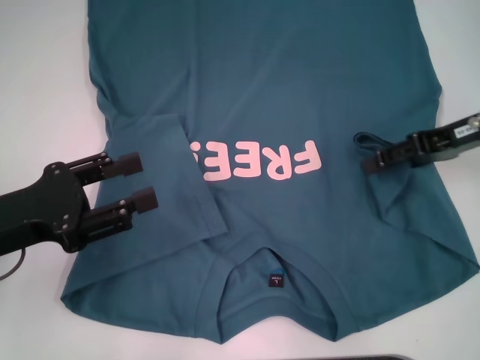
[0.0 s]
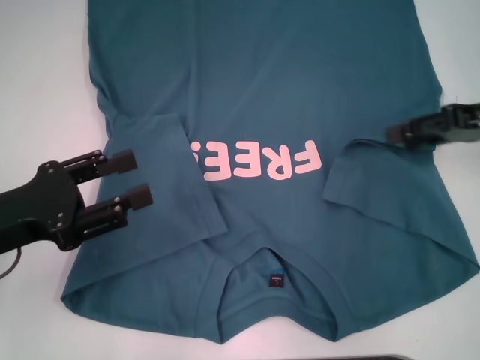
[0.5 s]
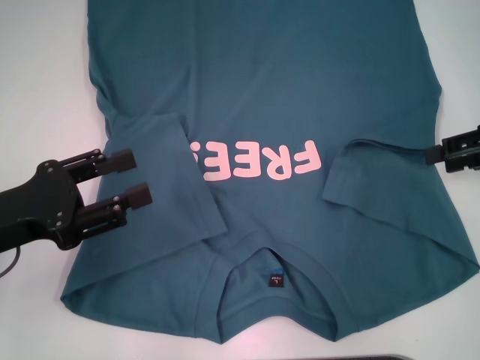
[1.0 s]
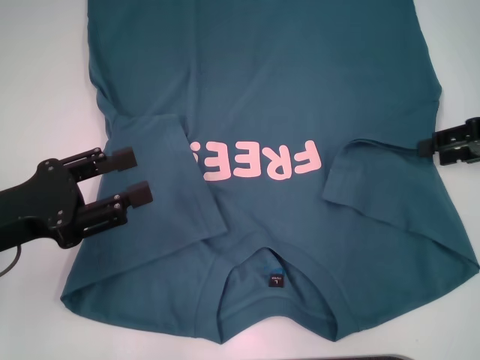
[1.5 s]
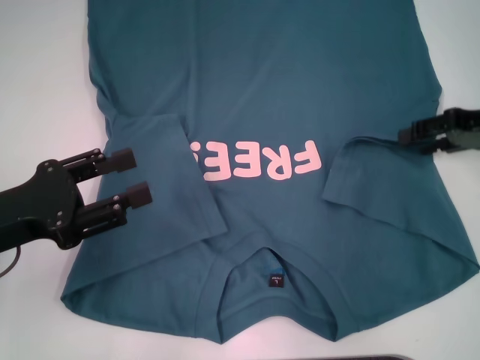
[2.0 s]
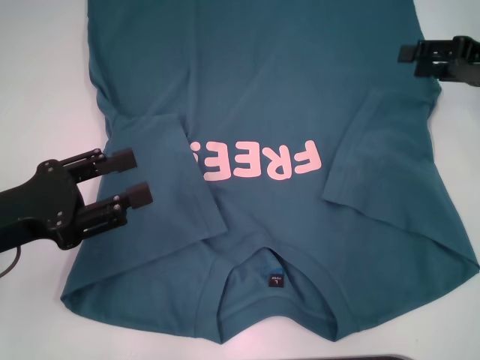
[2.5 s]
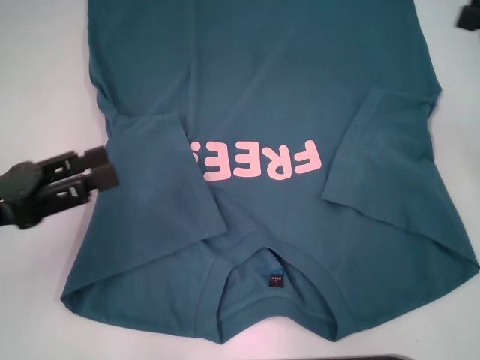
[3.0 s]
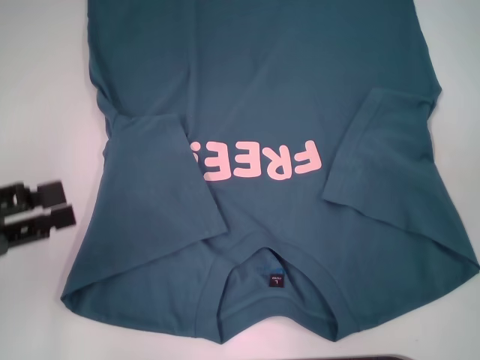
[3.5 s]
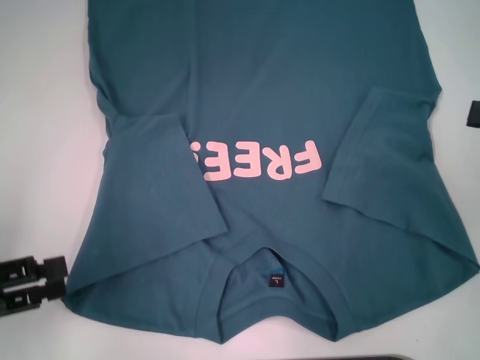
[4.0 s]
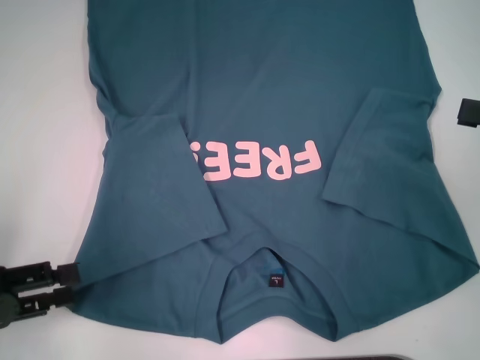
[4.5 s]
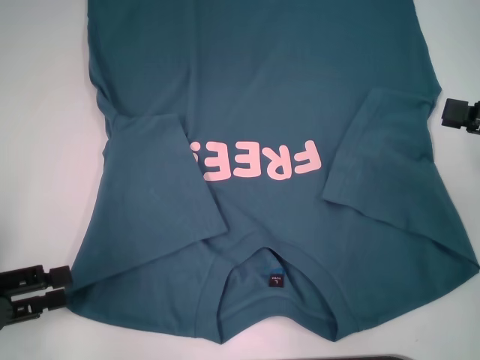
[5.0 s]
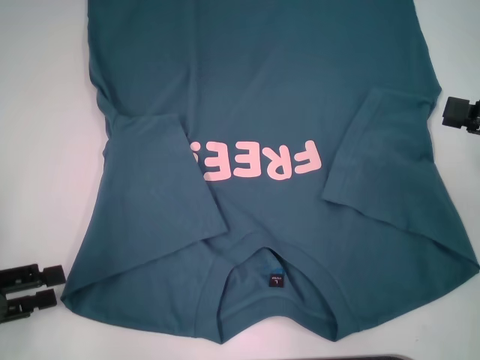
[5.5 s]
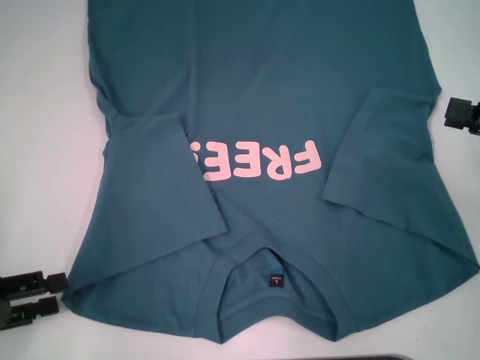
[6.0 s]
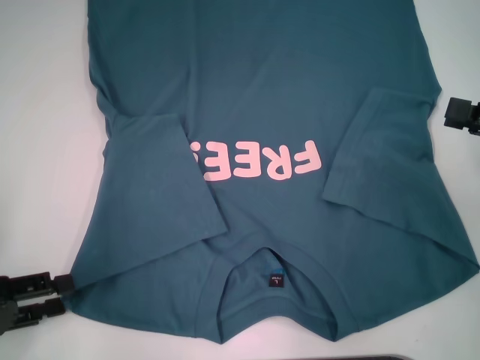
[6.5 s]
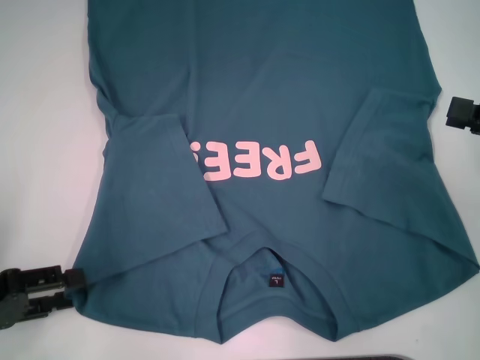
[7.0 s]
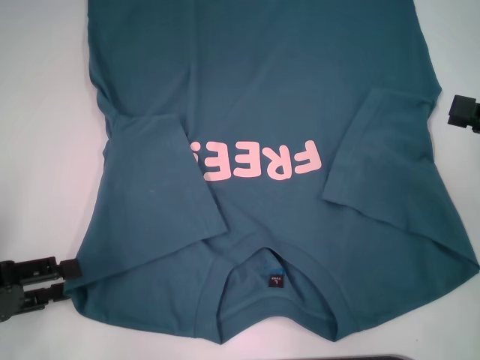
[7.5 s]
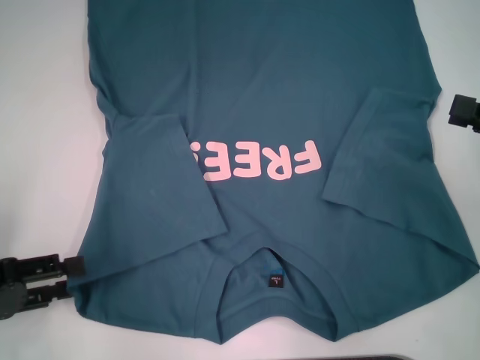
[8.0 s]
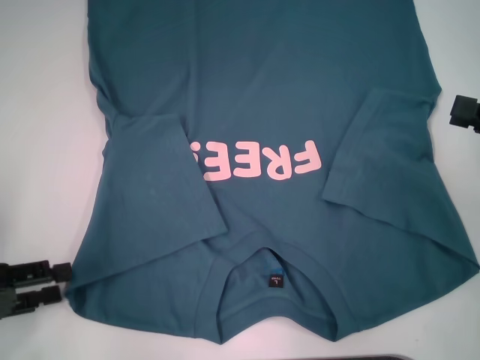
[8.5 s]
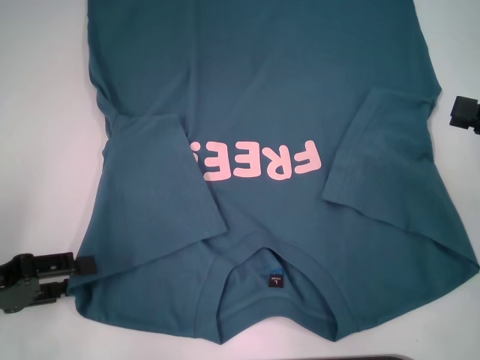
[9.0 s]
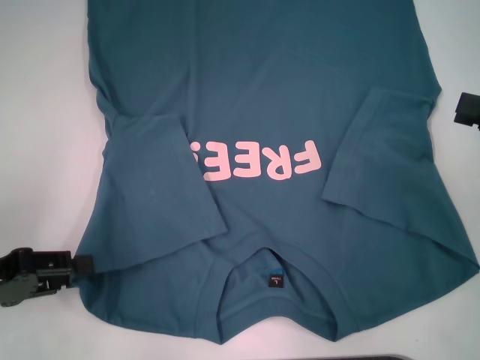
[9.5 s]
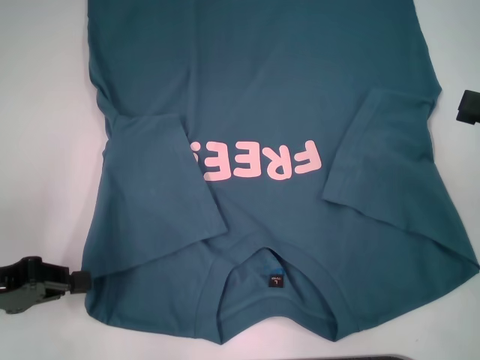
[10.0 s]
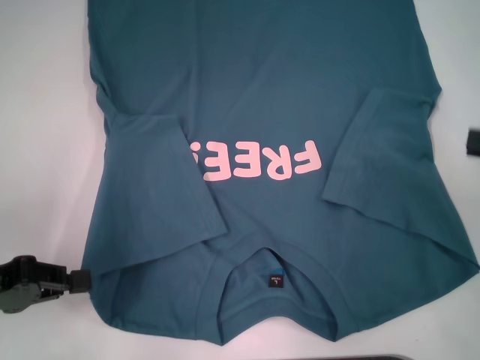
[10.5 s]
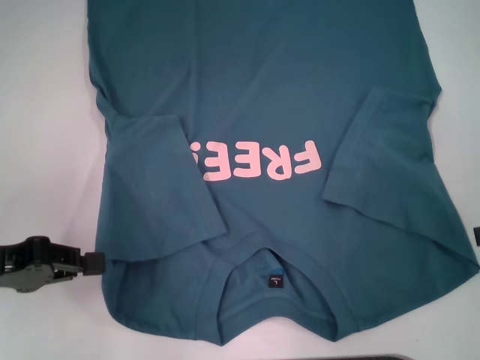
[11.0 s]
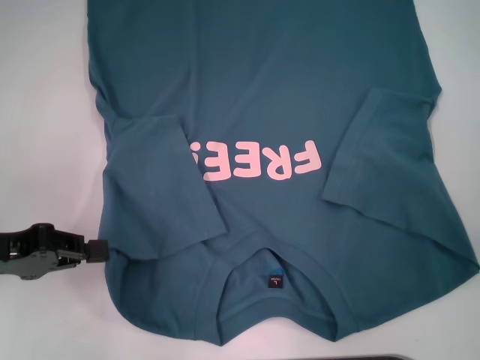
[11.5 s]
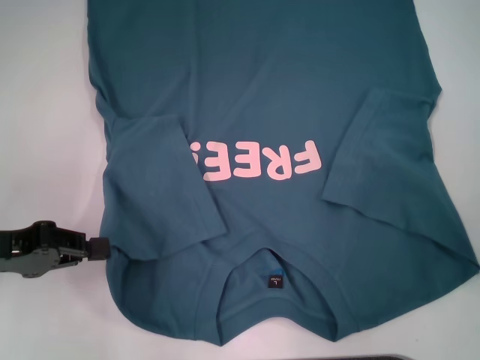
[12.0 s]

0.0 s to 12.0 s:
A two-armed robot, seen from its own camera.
Step, 0.0 to 2.5 s: Fold the bottom right sleeve to the right.
Step, 3.0 to 10.5 s: Grab the bottom left corner with your left hand.
2.0 to 4.0 s: The right gripper moves backward, roughly 10 cm, while the left gripper moves to the left, about 5 cm.
4.0 to 8.0 s: The grippers move only a little.
8.0 to 10.0 s: The left gripper closes.

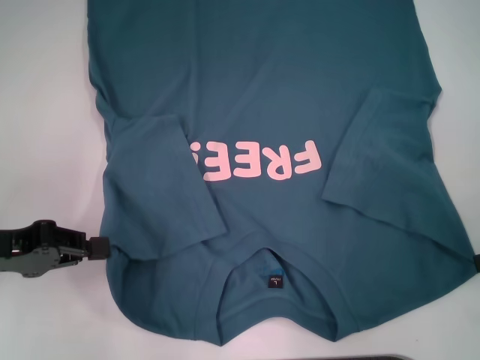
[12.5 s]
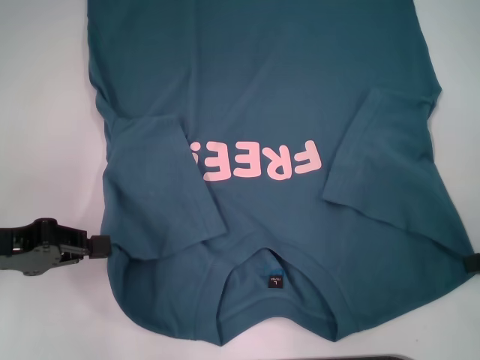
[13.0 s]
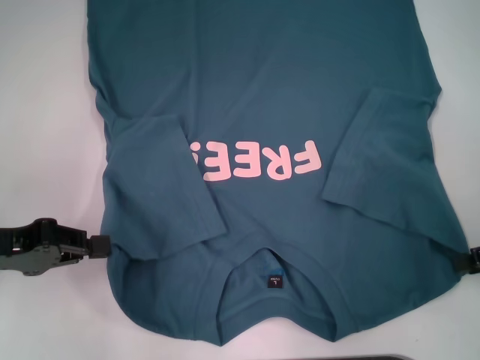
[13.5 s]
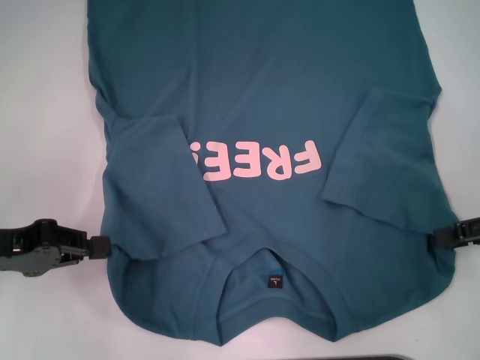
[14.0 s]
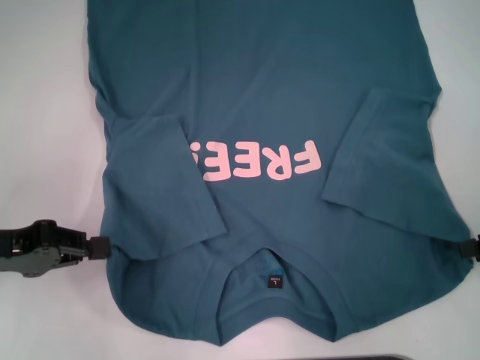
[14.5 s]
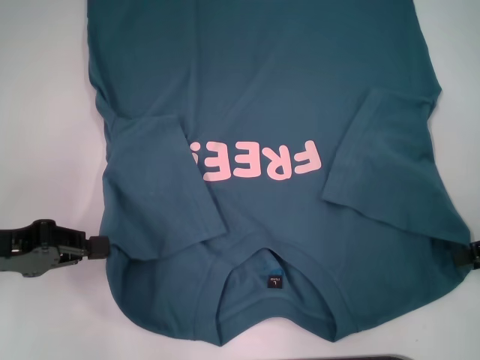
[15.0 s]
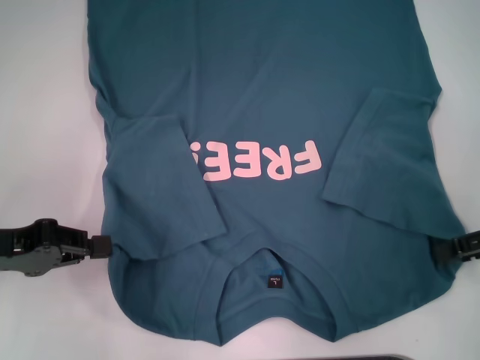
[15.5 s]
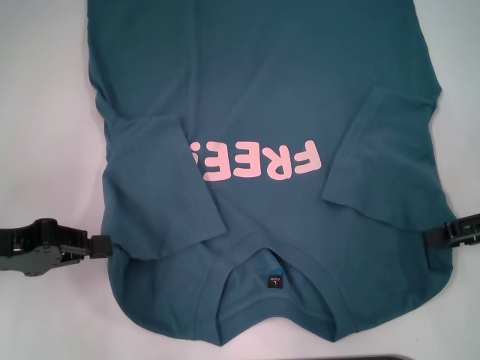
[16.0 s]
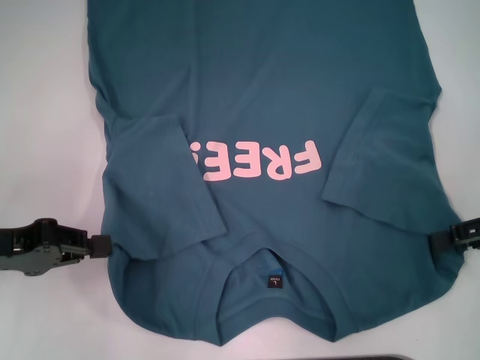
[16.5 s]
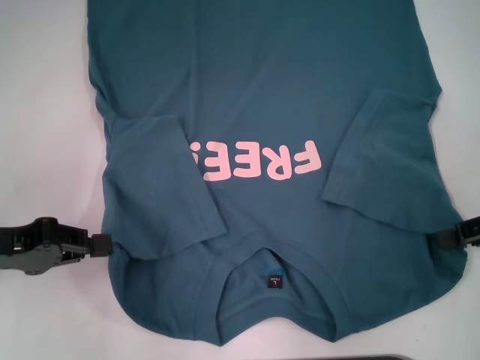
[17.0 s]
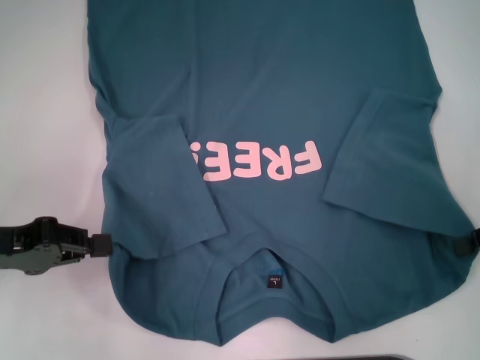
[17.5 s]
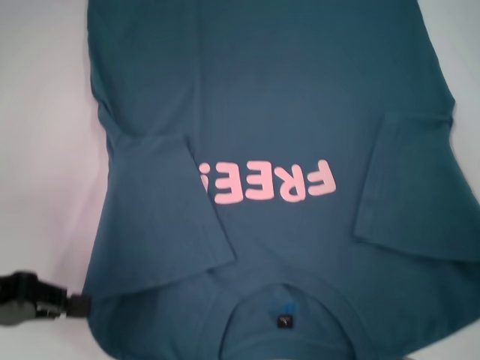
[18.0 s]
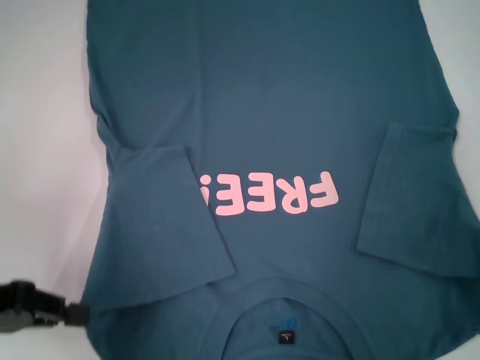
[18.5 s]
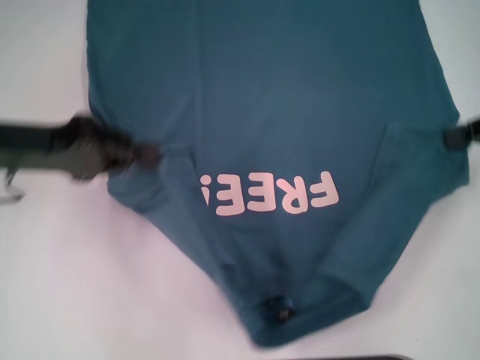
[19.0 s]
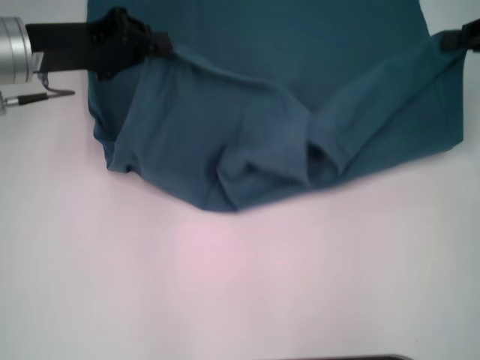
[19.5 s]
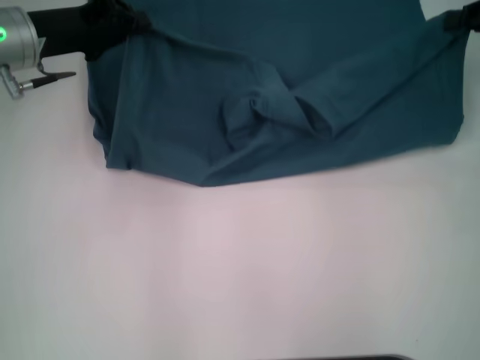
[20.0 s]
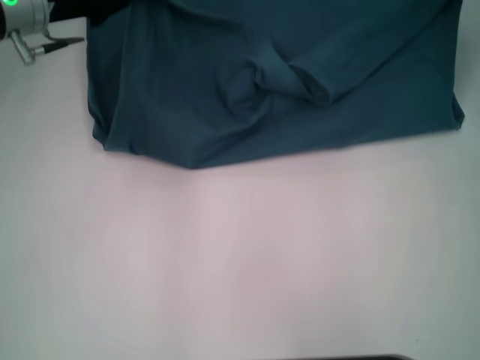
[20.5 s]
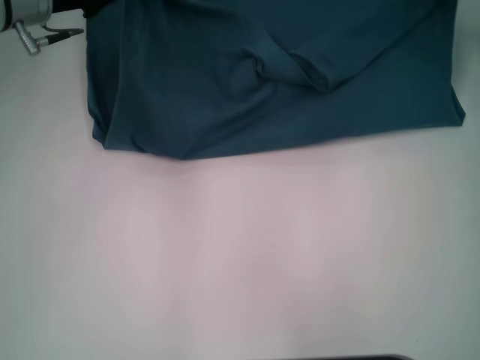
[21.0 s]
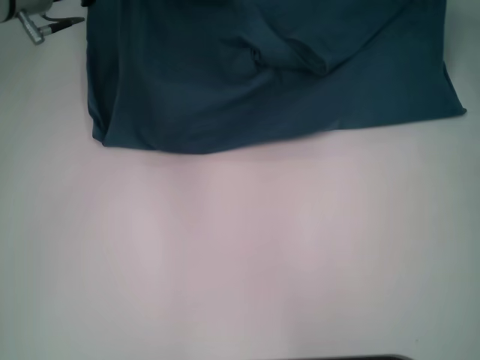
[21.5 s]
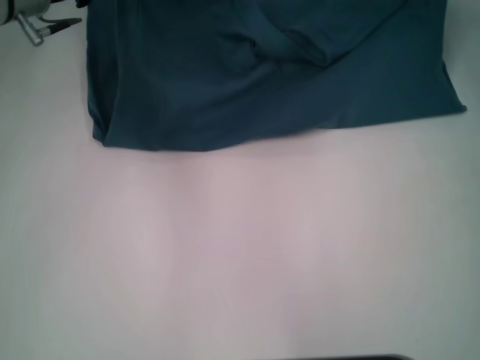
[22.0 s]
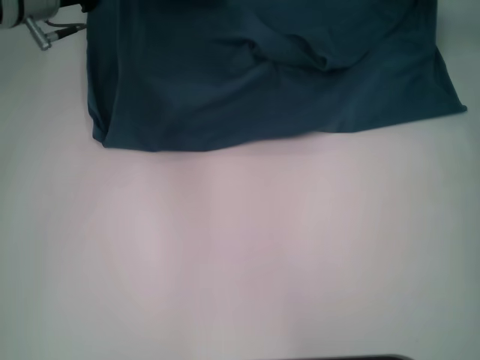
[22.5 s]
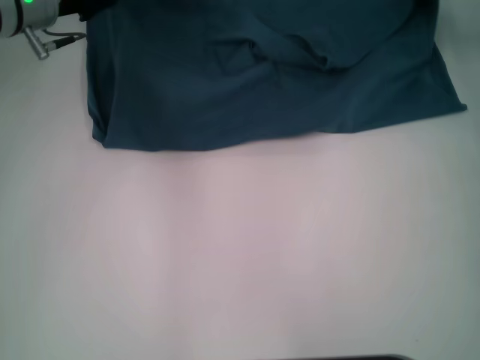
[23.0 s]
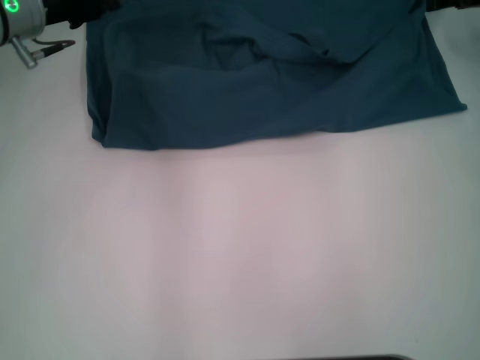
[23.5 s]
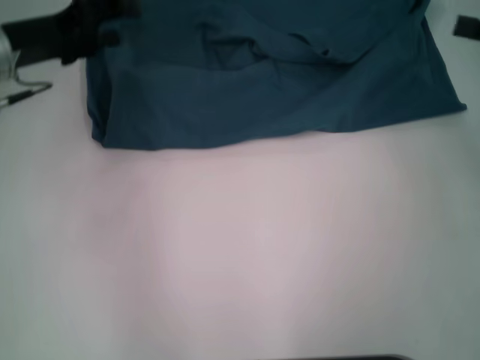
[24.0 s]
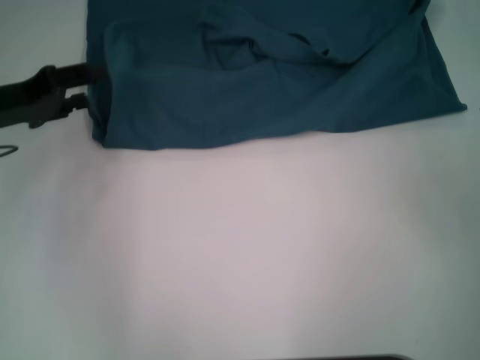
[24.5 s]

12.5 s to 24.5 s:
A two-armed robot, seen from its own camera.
Step, 12.5 to 14.5 s: Grab the bottom right corner with your right hand.
Step, 15.0 to 23.0 s: Fold the clothes to the left.
Step, 15.0 to 23.0 s: Fold the clothes to the right.
14.5 to 16.5 s: The grippers stay close to where they were, moving slightly.
16.5 to 18.5 s: The right gripper closes its fingers.
18.5 to 20.5 s: The left gripper heads forward and to the right, covering approximately 25 cm. Meanwhile the right gripper goes approximately 15 cm forward.
20.5 to 22.5 s: The right gripper changes place by roughly 5 cm.
22.5 to 24.5 s: The left gripper heads backward, to the left and downward, covering about 15 cm, and opens up. Meanwhile the right gripper heads backward and to the right, covering roughly 25 cm, and opens.

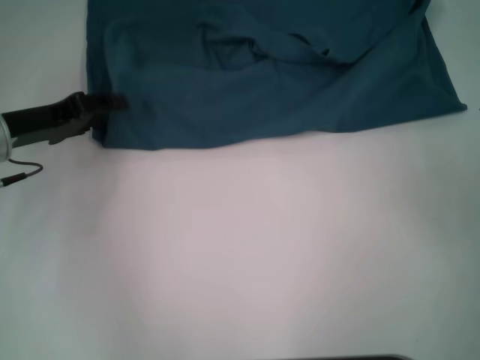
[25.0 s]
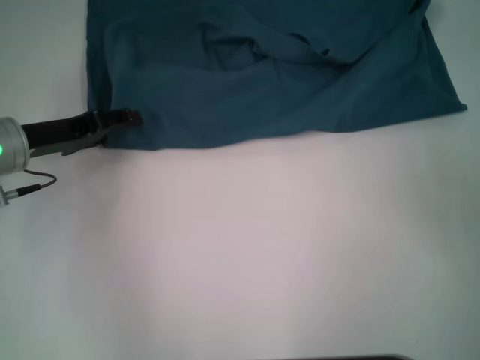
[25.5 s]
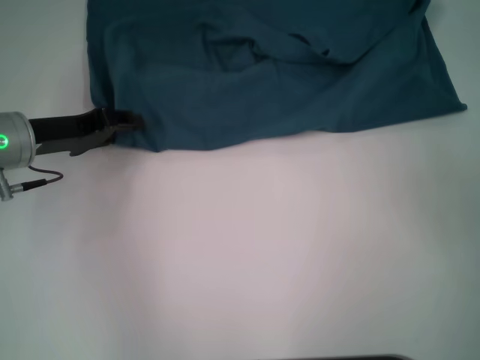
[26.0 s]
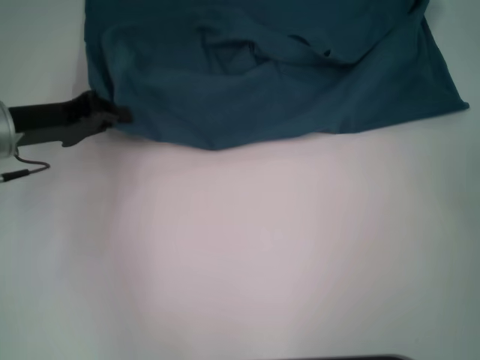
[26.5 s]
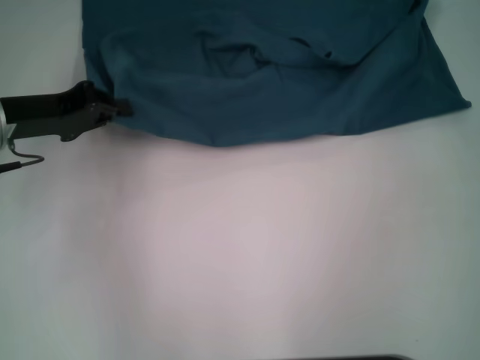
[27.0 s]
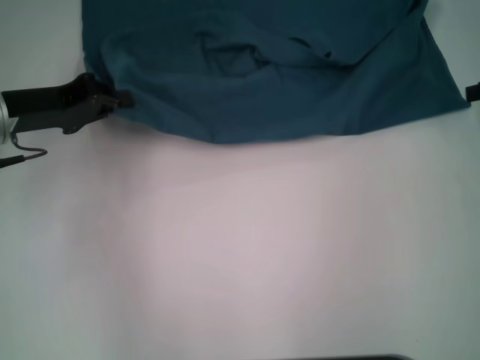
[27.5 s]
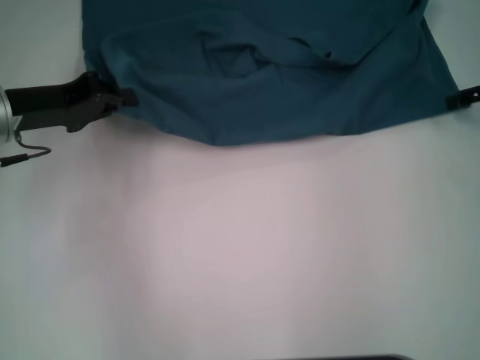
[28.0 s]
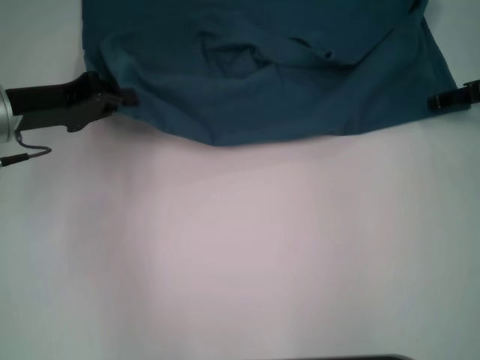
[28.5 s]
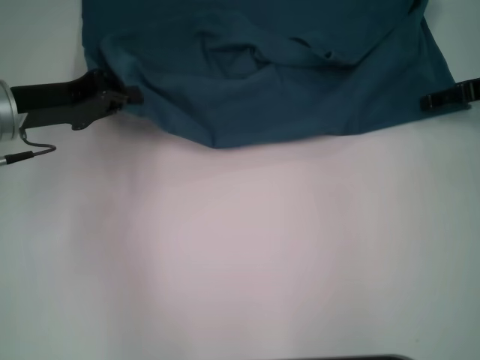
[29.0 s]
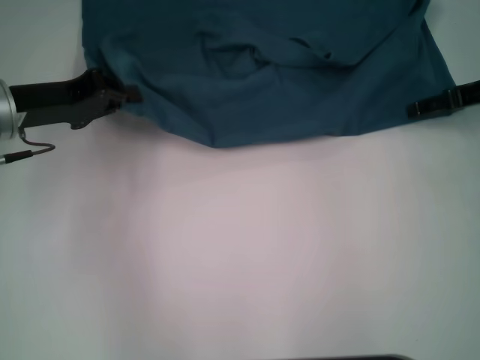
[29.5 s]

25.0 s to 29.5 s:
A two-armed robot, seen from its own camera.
25.0 to 27.0 s: The right gripper goes roughly 10 cm forward and upward. The left gripper closes its fingers.
27.0 to 29.5 s: The right gripper shifts some 10 cm to the left, downward and forward.
